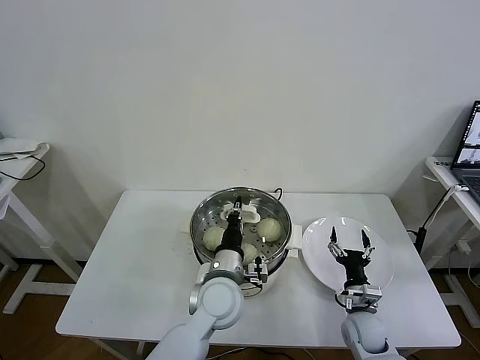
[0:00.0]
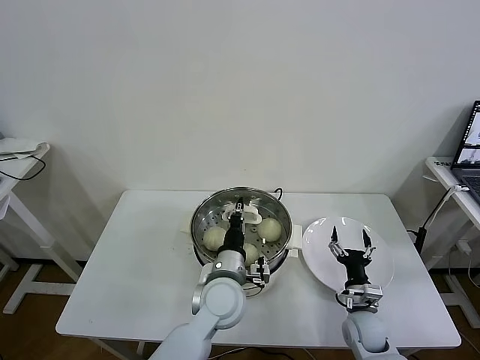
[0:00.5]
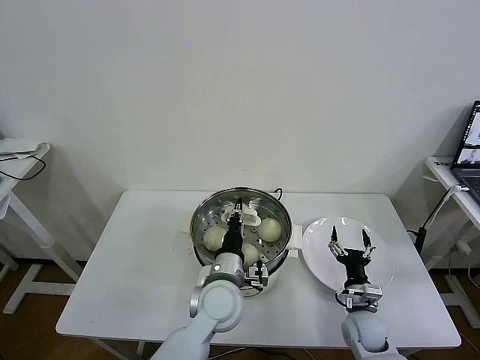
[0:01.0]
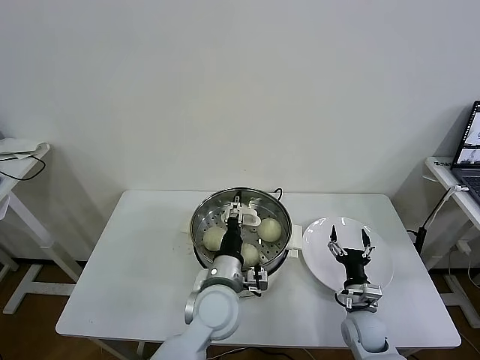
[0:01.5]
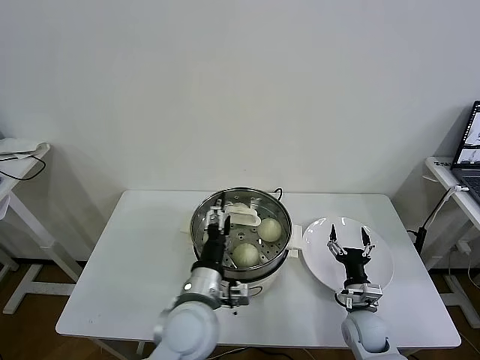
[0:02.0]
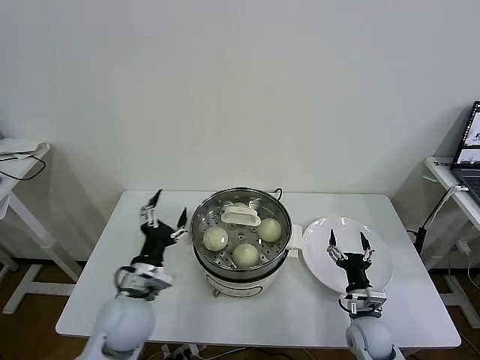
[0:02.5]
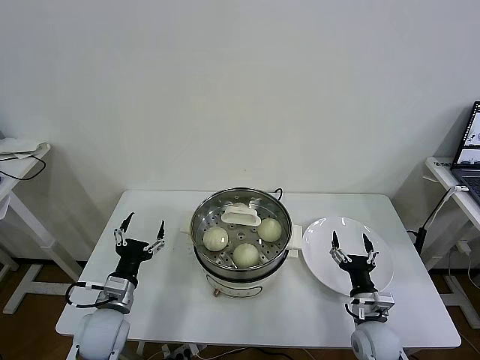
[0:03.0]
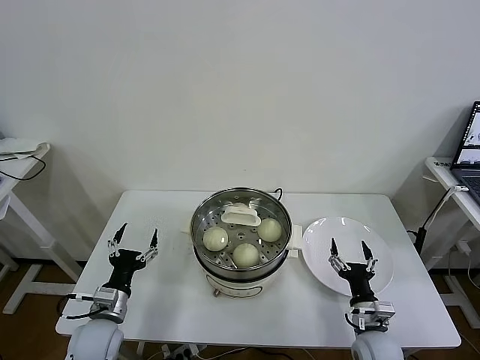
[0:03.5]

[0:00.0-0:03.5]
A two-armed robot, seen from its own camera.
Task of the whole recording: take steamed baozi put them in steamer then cover it.
0:00.0 to 0:02.0: The left gripper moves backward, roughly 5 cm, and opens its fingers.
0:02.0 to 0:03.5: The left gripper goes about 25 cm to the left and downward. Meanwhile the right gripper travels backward by about 5 cm.

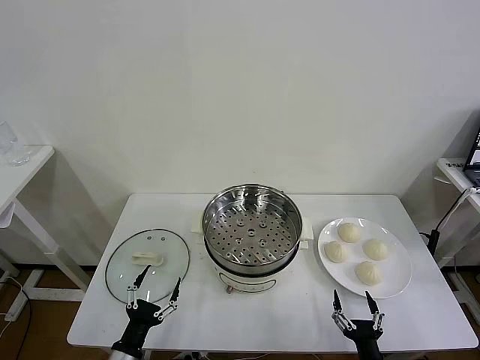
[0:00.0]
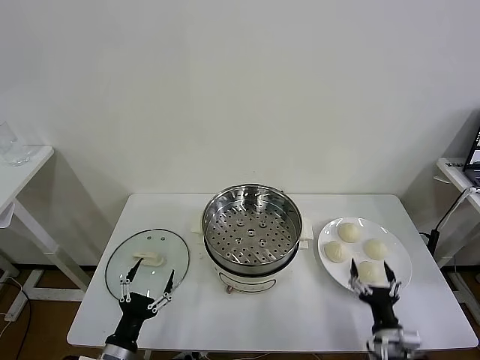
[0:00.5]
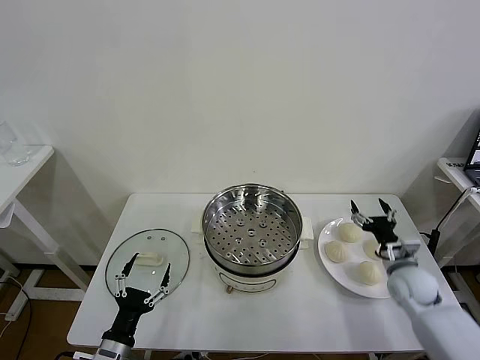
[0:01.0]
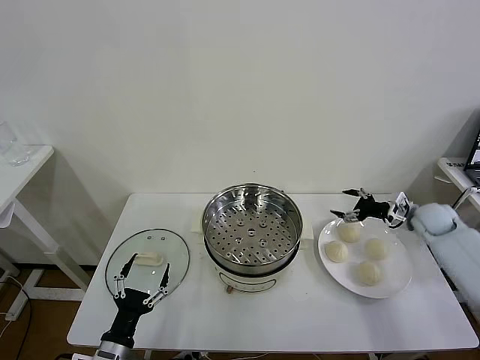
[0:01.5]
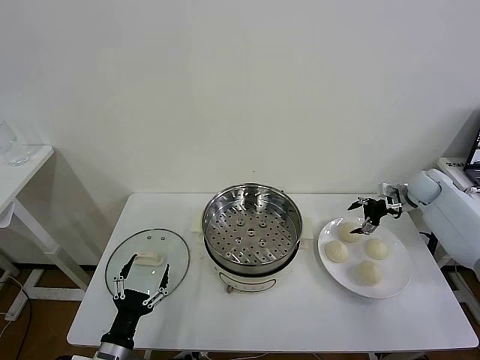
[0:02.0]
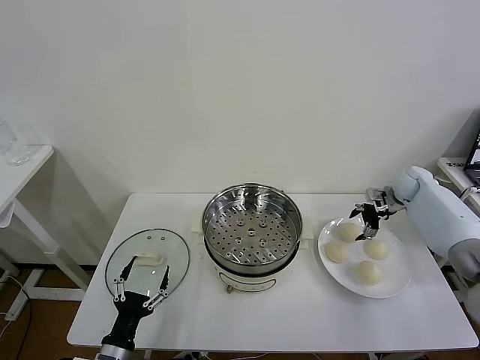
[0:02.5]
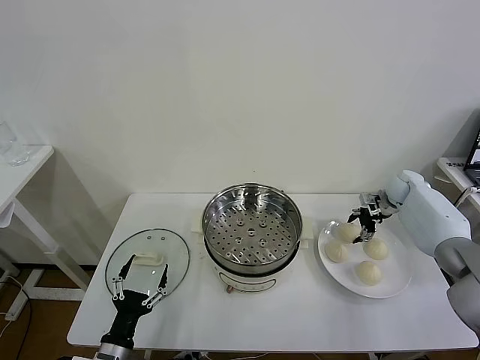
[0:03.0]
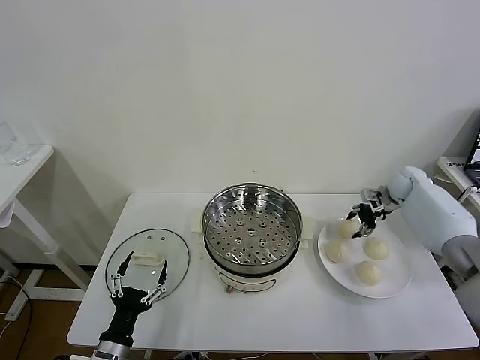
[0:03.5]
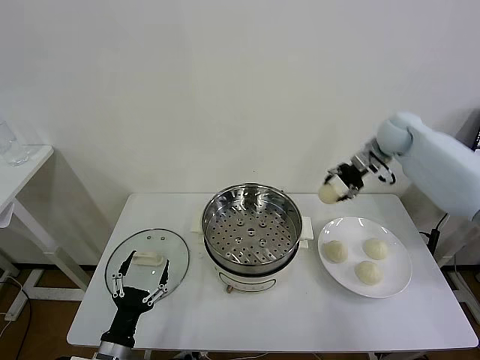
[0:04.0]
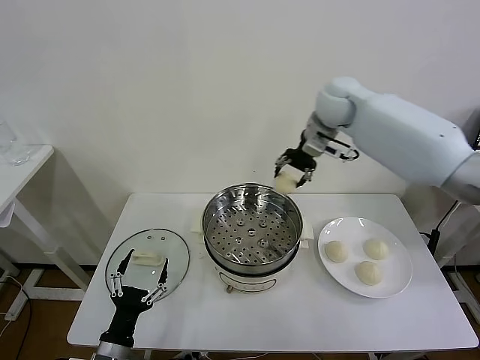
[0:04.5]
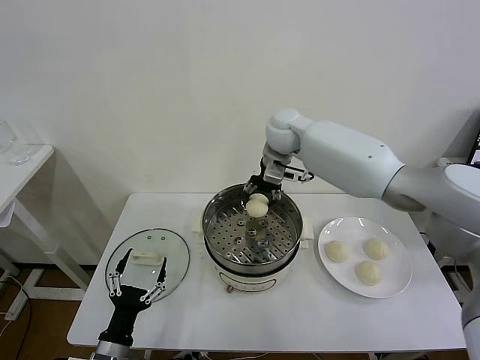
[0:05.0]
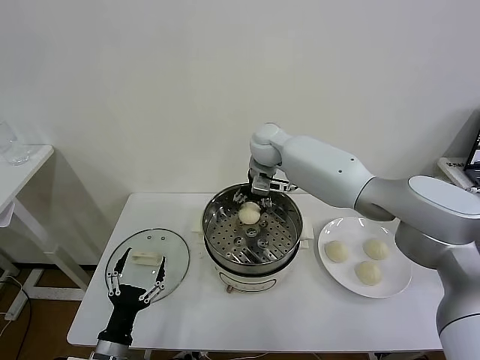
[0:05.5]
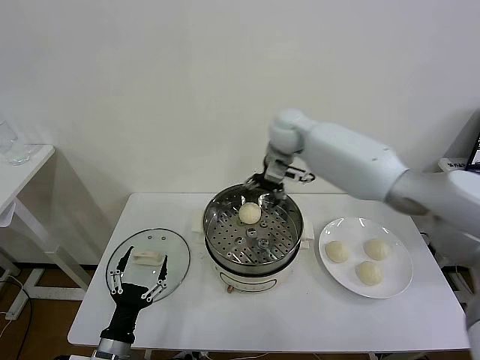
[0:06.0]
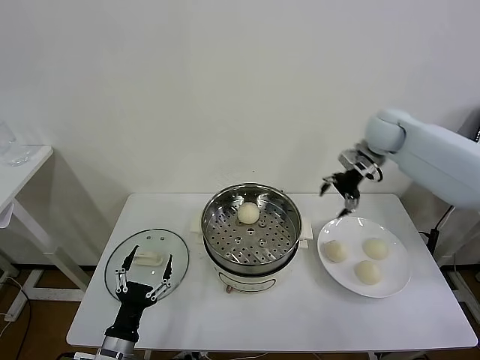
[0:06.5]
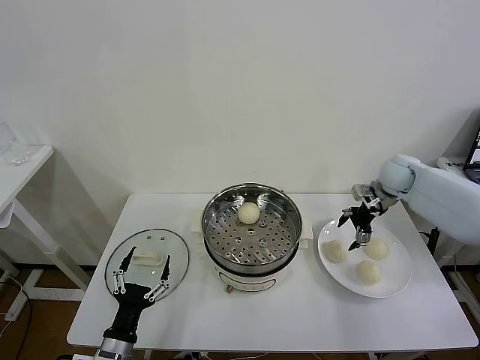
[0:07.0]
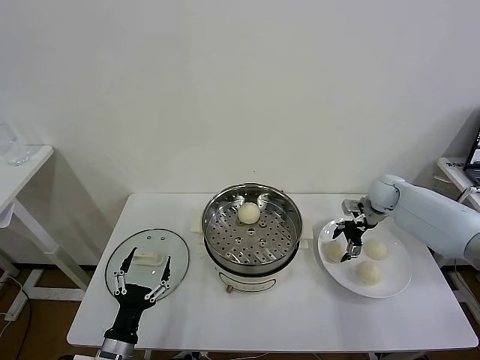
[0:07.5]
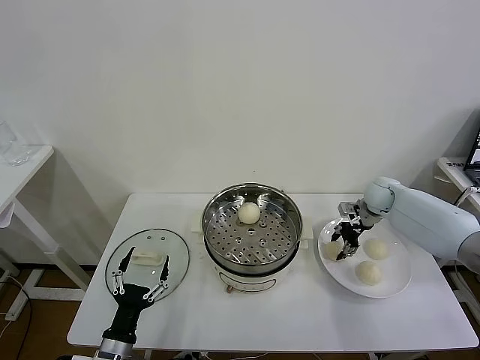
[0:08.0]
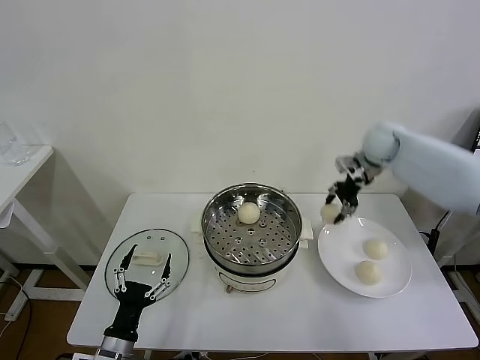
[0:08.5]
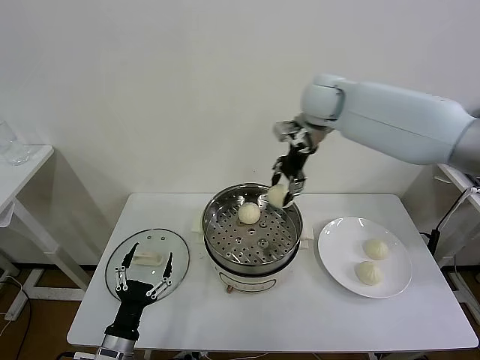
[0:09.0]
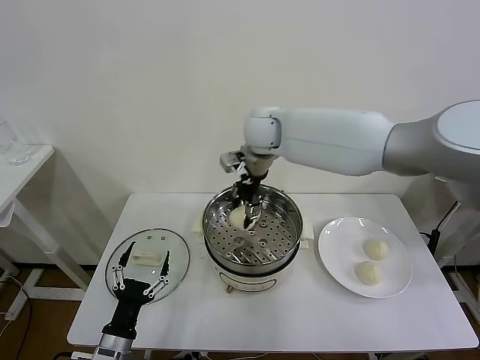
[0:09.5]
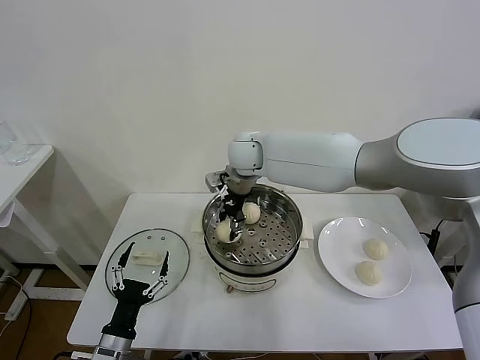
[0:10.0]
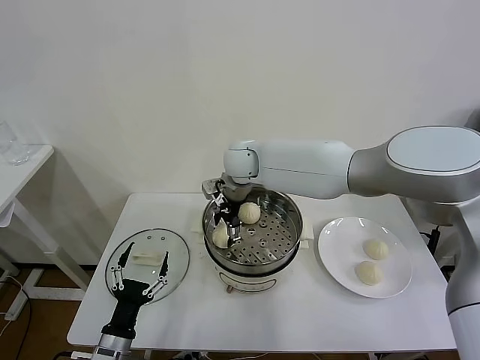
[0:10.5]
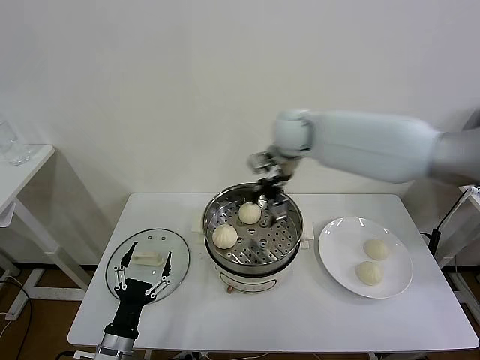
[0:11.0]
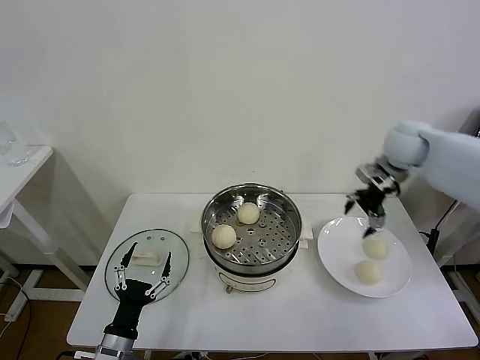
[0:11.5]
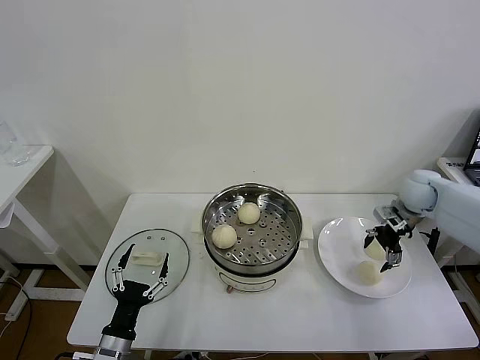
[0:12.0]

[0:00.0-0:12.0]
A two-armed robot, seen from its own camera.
Task of the whole recording: take steamed baozi put them in steamer then cover it.
Step, 0:00.0 to 0:03.0: Grasp the baozi in the plate with right gripper.
Step, 0:03.5 to 0:05.5: Place the baozi on the steamer with right gripper.
Step, 0:06.0 to 0:07.5: Grasp the baozi in the plate with right gripper.
Step, 0:08.0 to 0:10.5: Place the baozi on the steamer with right gripper.
0:02.0 to 0:04.0: The right gripper shifts about 25 cm upward and to the left, and closes.
0:04.0 to 0:06.0: The right gripper moves to the left, approximately 20 cm, and opens.
0:06.0 to 0:08.0: The right gripper travels to the right and downward by some 30 cm, and closes.
0:08.0 to 0:10.0: The right gripper shifts about 35 cm to the left.
0:10.0 to 0:12.0: The right gripper heads to the right, covering some 40 cm, and opens.

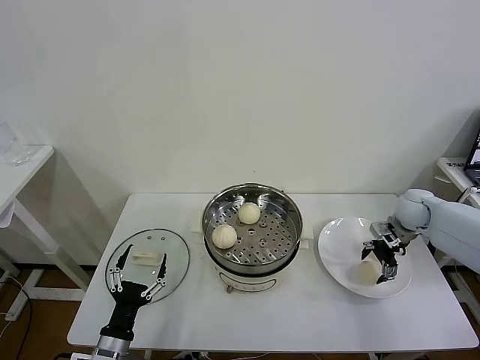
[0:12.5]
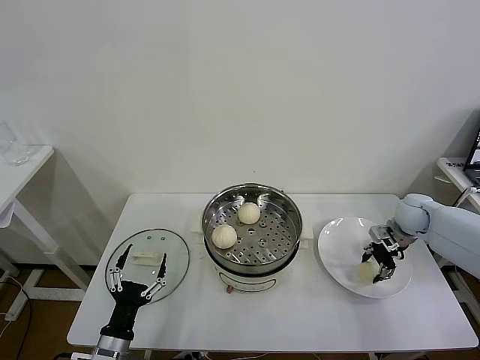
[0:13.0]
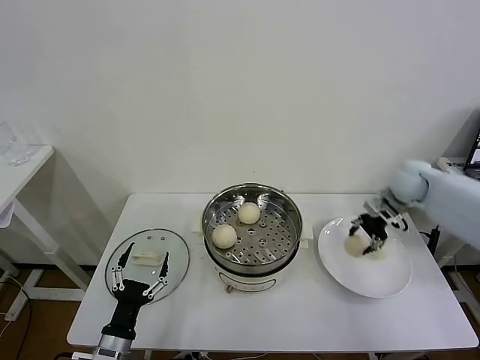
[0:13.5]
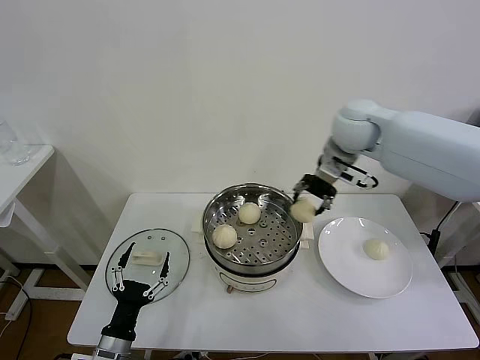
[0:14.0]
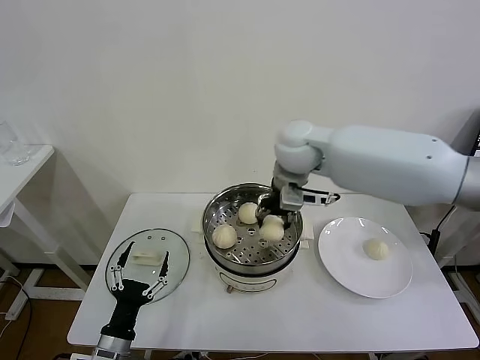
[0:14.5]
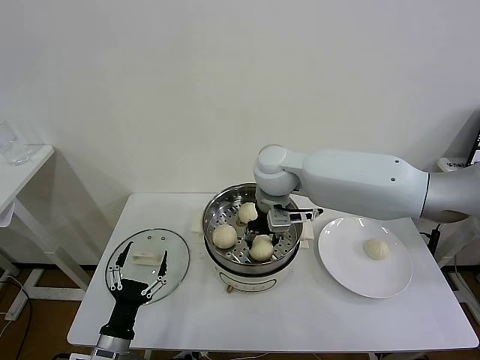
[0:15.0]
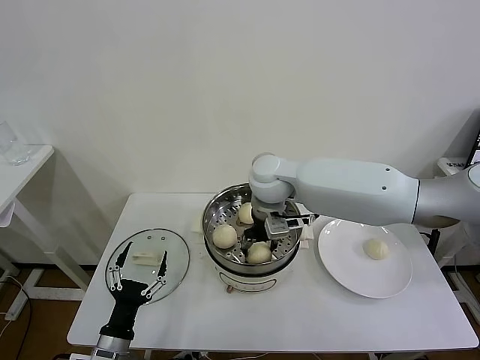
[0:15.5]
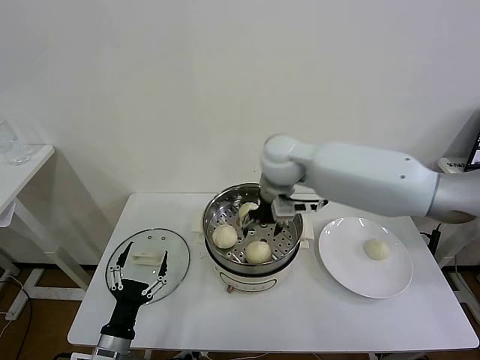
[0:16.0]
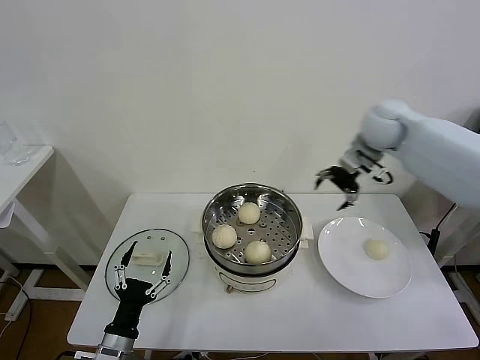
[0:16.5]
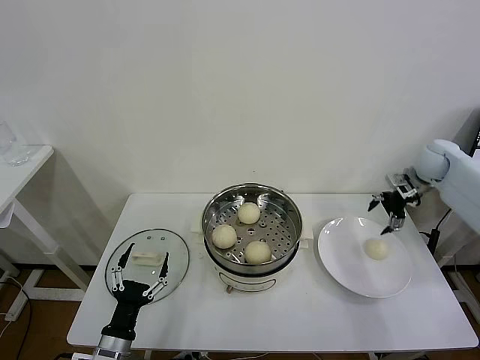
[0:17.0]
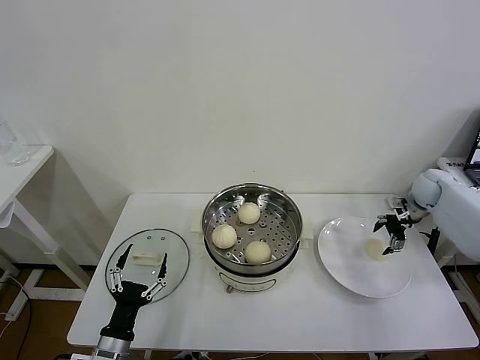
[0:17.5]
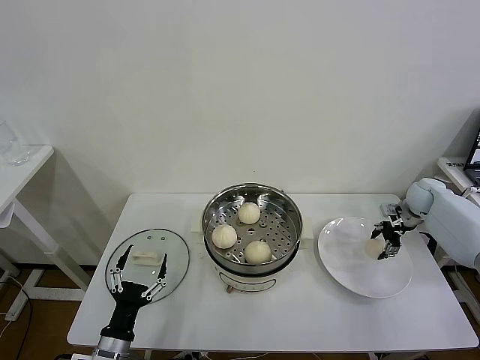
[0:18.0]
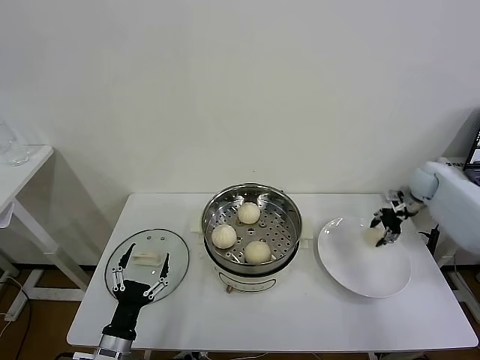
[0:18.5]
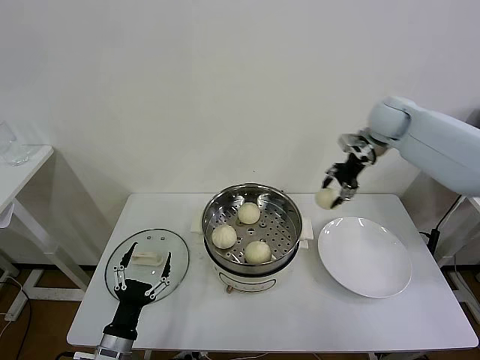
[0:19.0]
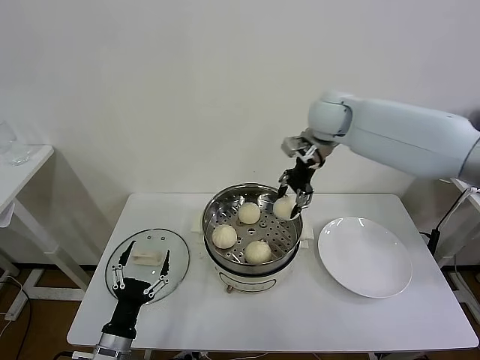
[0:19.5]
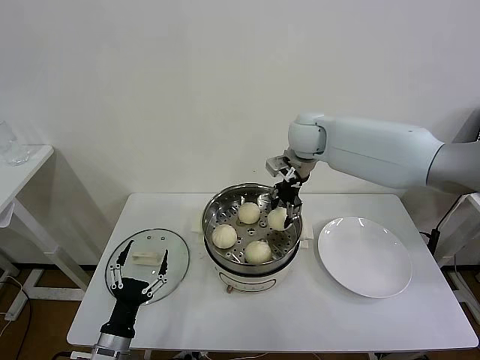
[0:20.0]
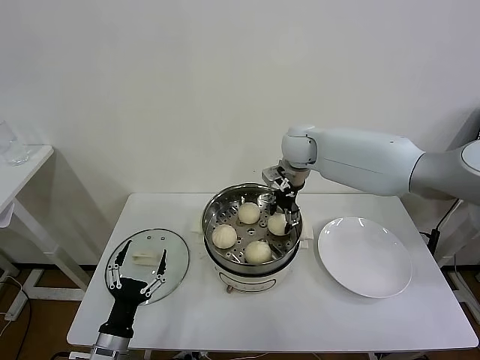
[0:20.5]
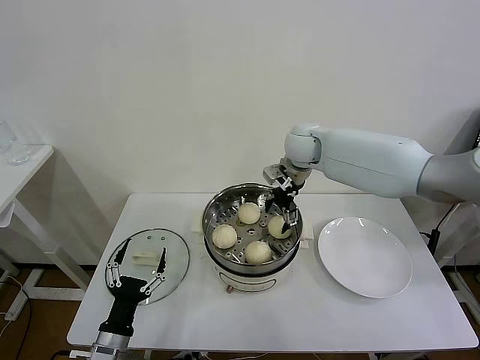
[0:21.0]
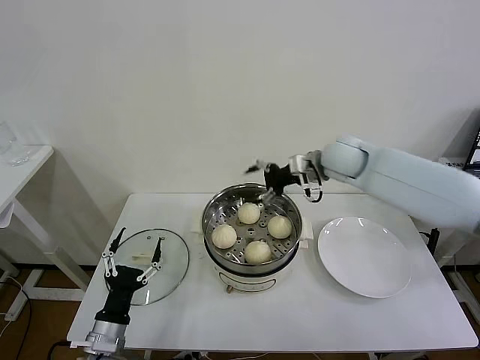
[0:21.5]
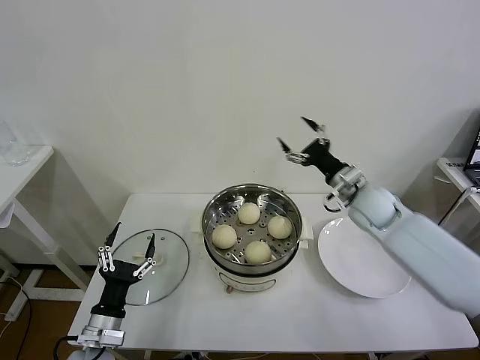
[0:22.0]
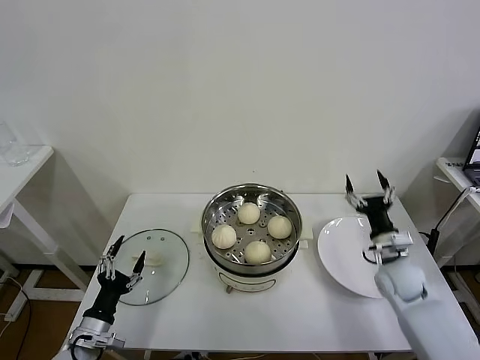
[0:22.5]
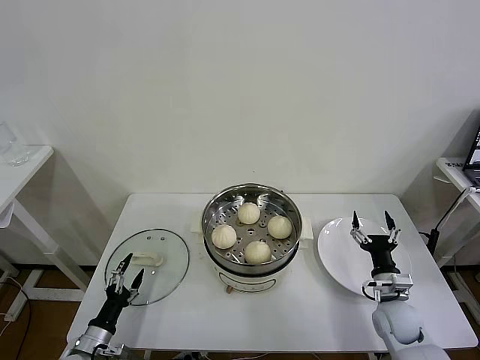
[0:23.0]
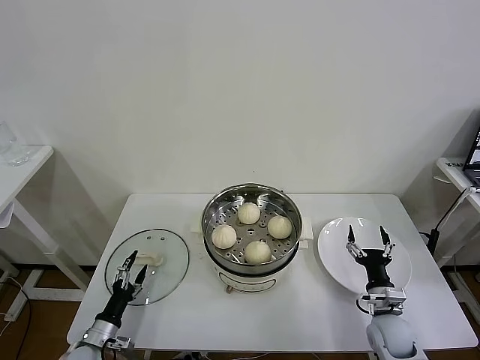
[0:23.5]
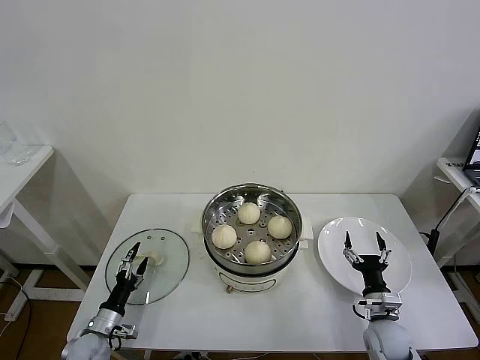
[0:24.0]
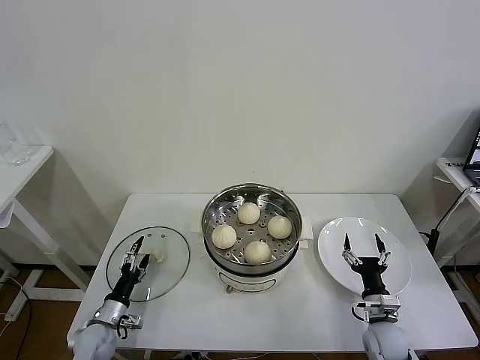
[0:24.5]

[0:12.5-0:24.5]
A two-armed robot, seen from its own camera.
Task of the whole recording: take steamed baozi put them in steamer then cover it.
Step, 0:13.5 to 0:15.5: Place the baozi on the steamer with right gripper.
Step, 0:16.0 to 0:18.0: Grasp the baozi in the plate with right gripper.
Step, 0:18.5 to 0:20.5: Place the baozi on the steamer with right gripper.
0:12.5 to 0:14.5: The right gripper is displaced to the left and upward by roughly 40 cm, and closes its fingers.
0:14.5 to 0:16.5: The right gripper goes some 20 cm to the right, and opens its fingers.
0:16.5 to 0:18.5: The right gripper is displaced to the right and downward by about 25 cm, and closes up.
0:18.5 to 0:20.5: The right gripper shifts about 35 cm to the left.
0:20.5 to 0:22.5: The right gripper goes approximately 40 cm to the right, downward and backward, and opens up; the left gripper travels to the left by approximately 5 cm.
0:22.5 to 0:24.5: The left gripper goes roughly 10 cm downward and forward. The right gripper shifts roughly 15 cm downward and backward.
